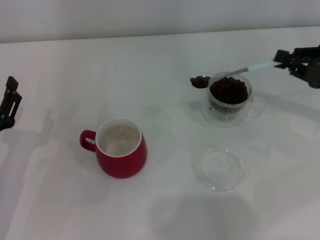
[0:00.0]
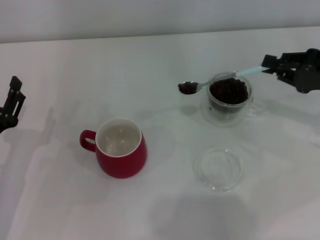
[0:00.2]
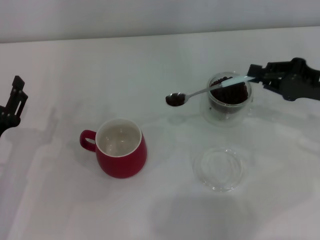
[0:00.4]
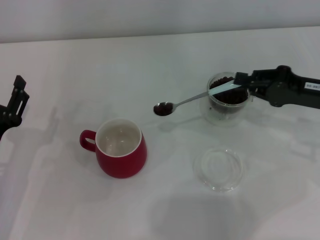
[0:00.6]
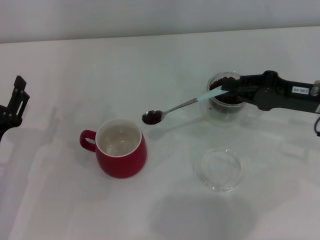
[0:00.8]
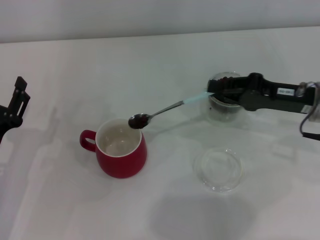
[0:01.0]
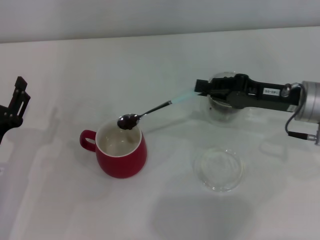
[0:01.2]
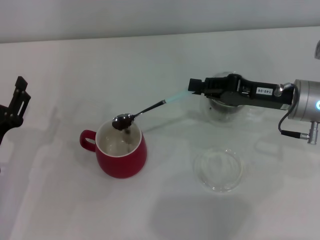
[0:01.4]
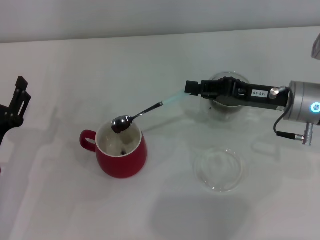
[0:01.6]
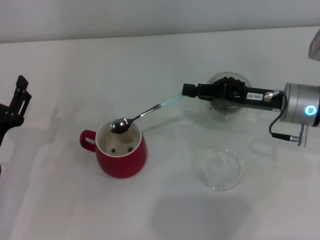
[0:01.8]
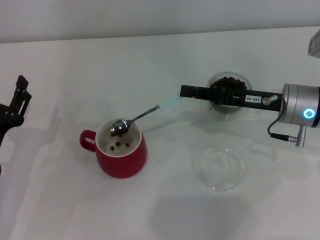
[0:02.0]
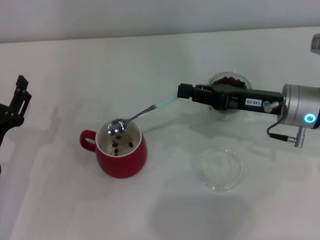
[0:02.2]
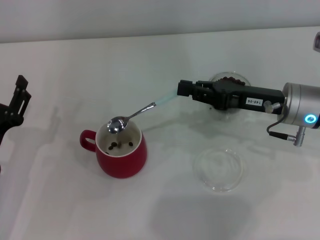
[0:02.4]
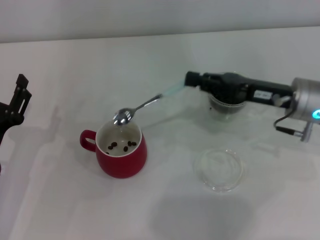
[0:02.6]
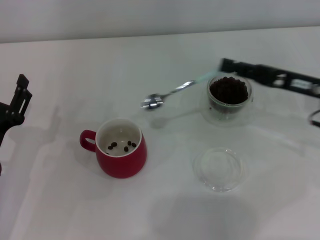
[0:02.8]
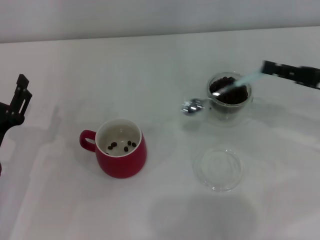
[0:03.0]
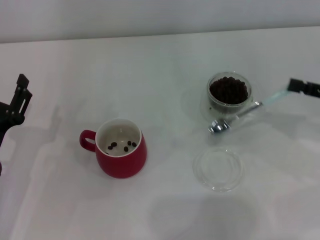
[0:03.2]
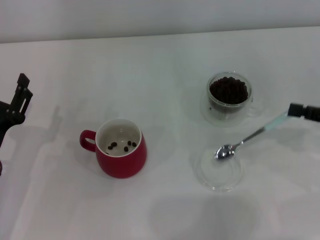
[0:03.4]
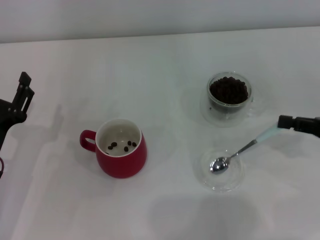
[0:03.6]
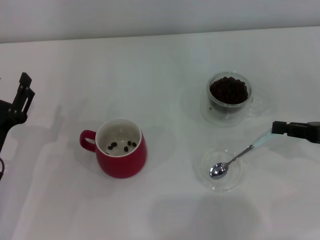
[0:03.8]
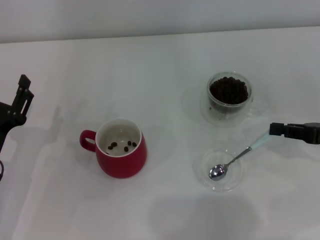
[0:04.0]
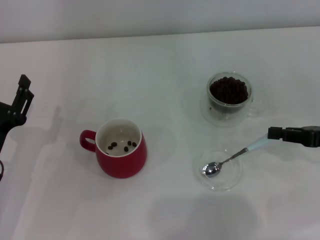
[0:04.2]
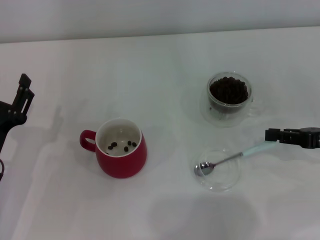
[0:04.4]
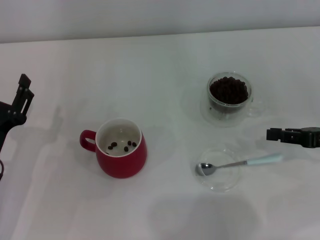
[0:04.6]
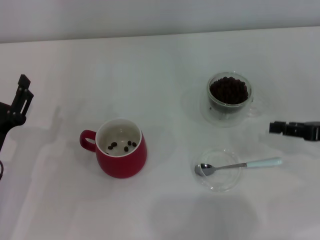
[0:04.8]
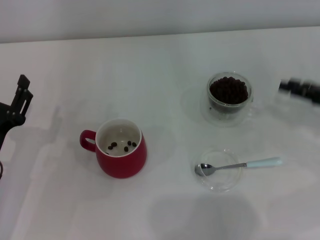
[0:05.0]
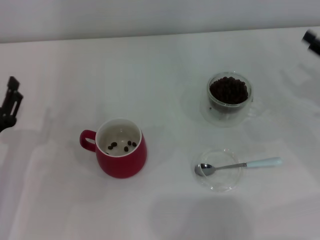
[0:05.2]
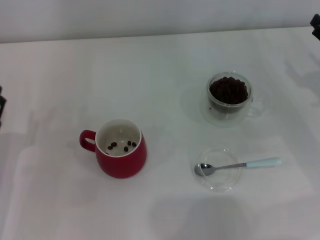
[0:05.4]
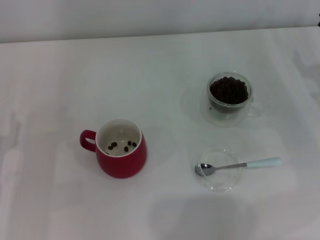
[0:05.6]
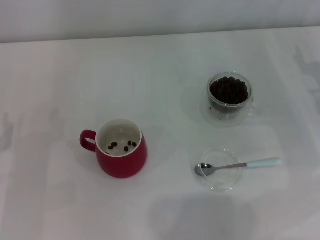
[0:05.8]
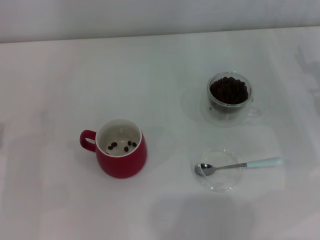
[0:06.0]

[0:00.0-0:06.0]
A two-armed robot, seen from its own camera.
Task of the whole recording: Use a blue spoon to take out the coffee beans from the glass and pour them into the red cup.
Step, 0:00.0 to 0:02.2: Scoop a spoonful of beans into the cup with the right gripper.
Step, 0:02.4 to 0:04.6: Place the spoon back in its original place with the right gripper.
0:00.0 to 0:01.6: The right gripper shifts approximately 10 cm to the left.
0:01.6 to 0:03.0: The right gripper travels to the right by approximately 10 cm.
0:03.0 to 0:04.4: The right gripper ends up roughly 5 cm from where it was.
0:04.4 to 0:06.0: The right gripper goes roughly 10 cm forward, and opens. The left gripper ends up roughly 5 cm from where it was.
